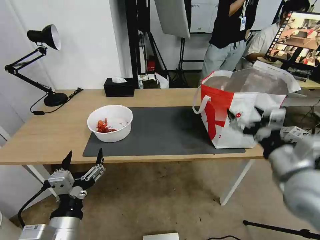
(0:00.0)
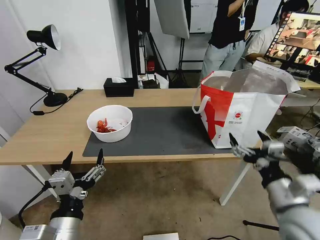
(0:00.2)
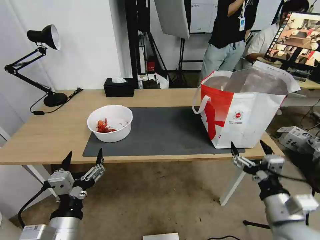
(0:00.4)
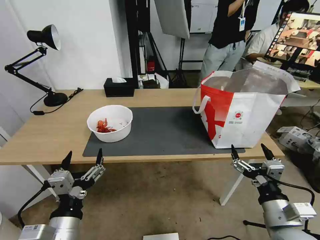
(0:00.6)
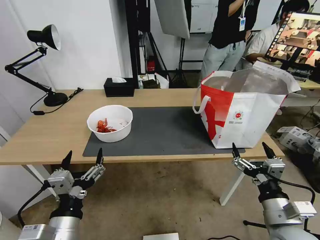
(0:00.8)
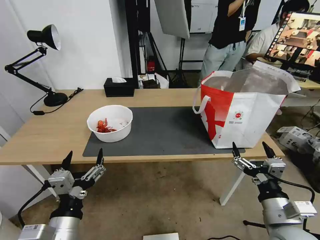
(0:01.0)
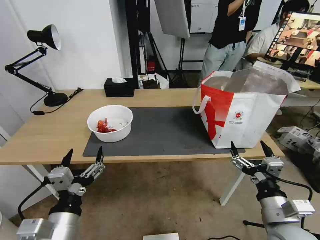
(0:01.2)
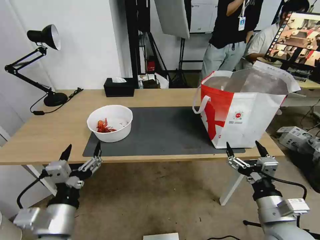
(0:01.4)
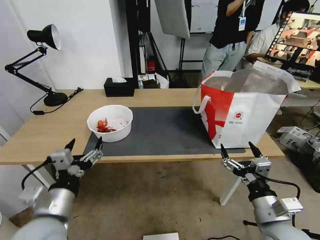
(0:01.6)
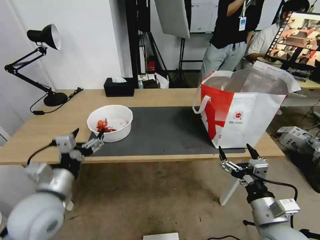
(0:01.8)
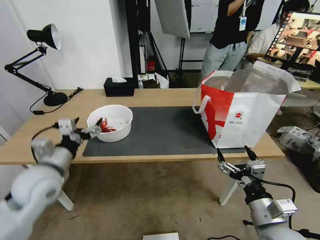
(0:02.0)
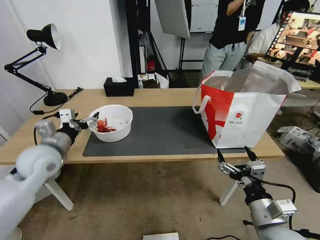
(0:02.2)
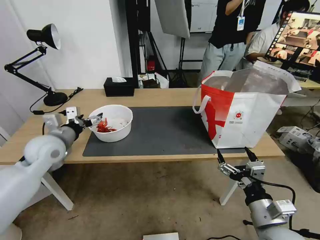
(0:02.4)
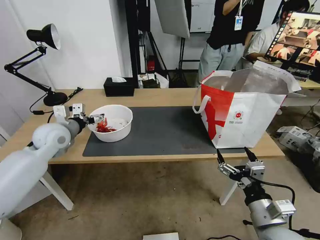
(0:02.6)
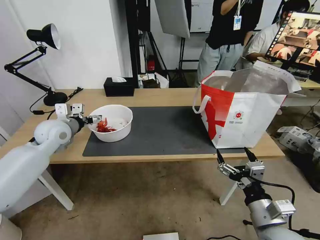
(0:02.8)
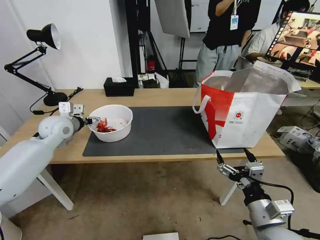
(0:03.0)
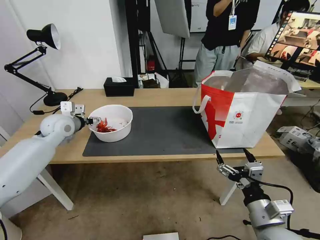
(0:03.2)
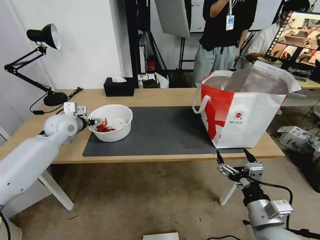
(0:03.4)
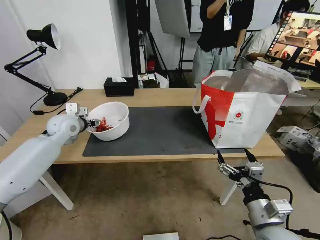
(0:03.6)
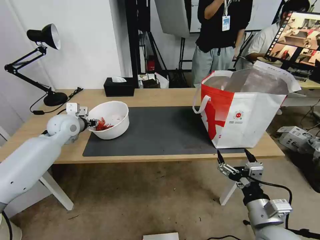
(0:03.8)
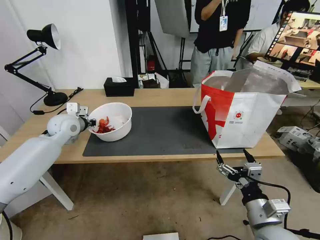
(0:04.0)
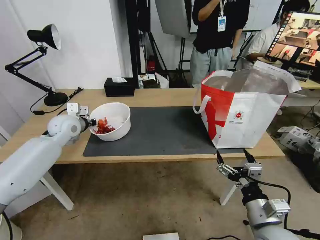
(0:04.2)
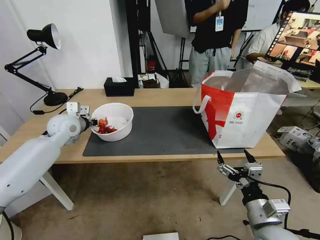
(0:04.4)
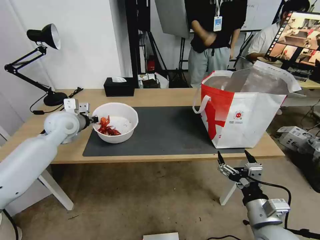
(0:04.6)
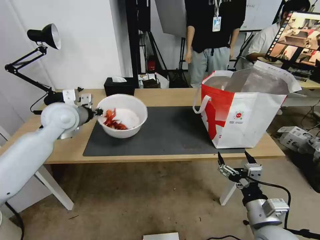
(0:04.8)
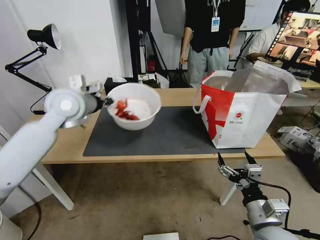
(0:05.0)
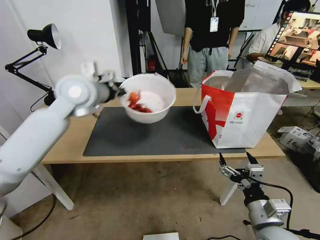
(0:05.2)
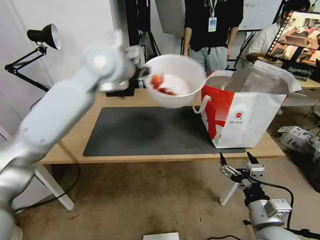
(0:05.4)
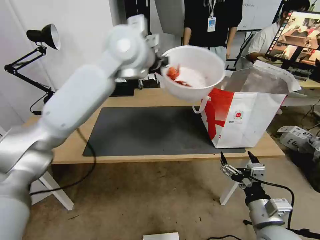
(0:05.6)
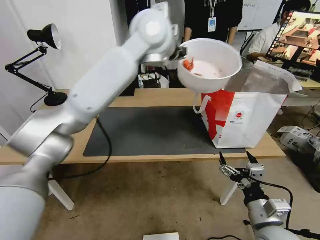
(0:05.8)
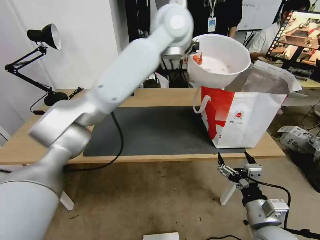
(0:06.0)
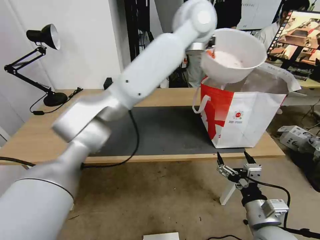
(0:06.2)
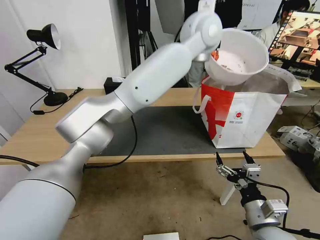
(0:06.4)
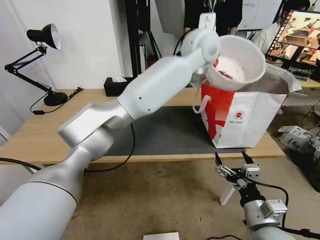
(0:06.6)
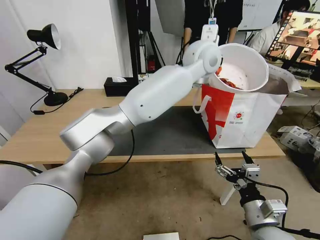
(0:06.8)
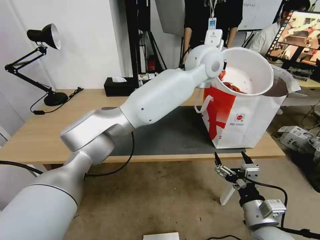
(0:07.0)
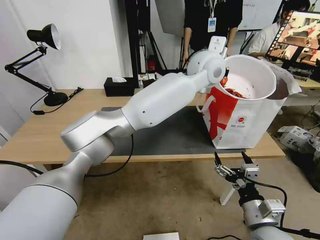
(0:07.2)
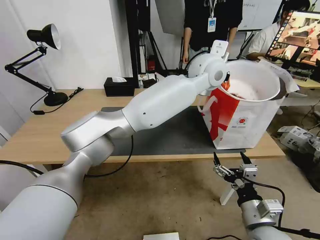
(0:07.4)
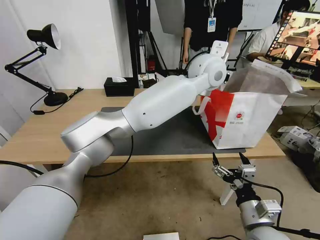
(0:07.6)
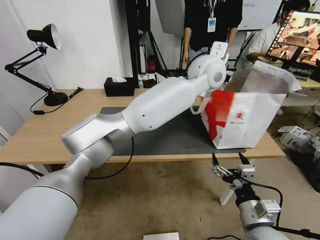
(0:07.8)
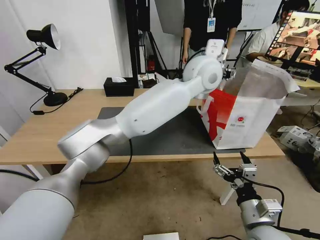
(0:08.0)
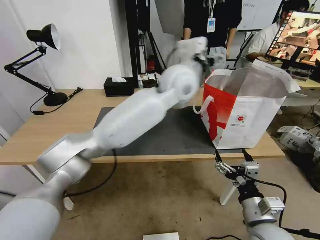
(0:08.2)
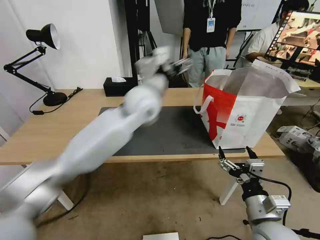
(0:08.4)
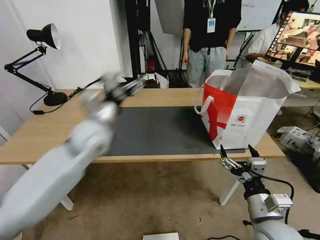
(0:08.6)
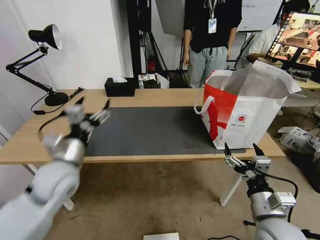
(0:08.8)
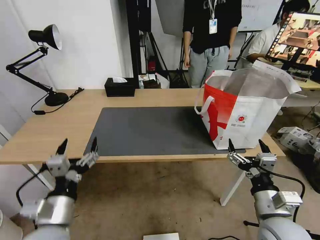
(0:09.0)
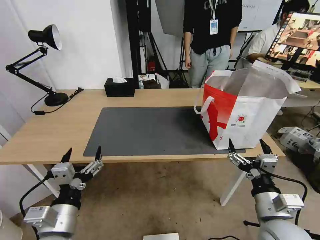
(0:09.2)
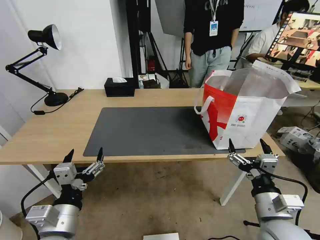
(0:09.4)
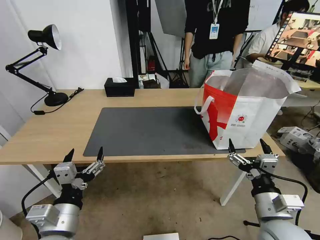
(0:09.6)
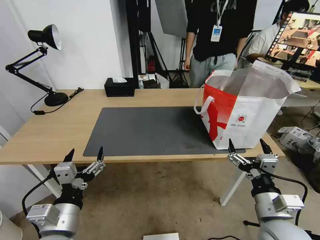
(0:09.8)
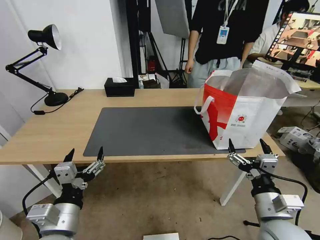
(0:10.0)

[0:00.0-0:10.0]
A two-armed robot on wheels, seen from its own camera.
Task of the whole recording: Pick up the trash from the table and place it into the takeout bag.
0:00.0 to 0:01.4: The right gripper goes roughly 10 cm downward and backward.
0:01.4 to 0:02.8: The left gripper moves forward, about 30 cm.
0:02.8 to 0:04.2: The left gripper closes its fingers.
0:04.2 to 0:05.8: The left gripper heads to the right and upward, covering approximately 40 cm.
0:05.8 to 0:07.2: The left gripper heads to the right and downward, covering roughly 15 cm.
0:07.2 to 0:08.6: The left gripper shifts about 35 cm to the left, backward and downward, and opens up.
0:08.6 to 0:10.0: The left gripper is displaced backward and downward by roughly 25 cm.
